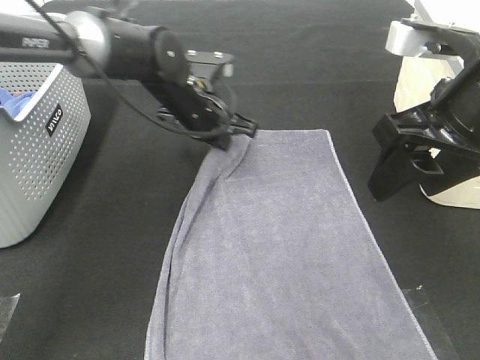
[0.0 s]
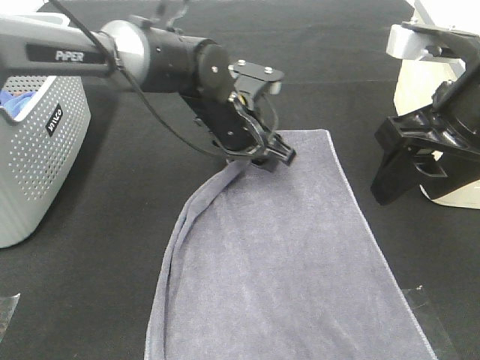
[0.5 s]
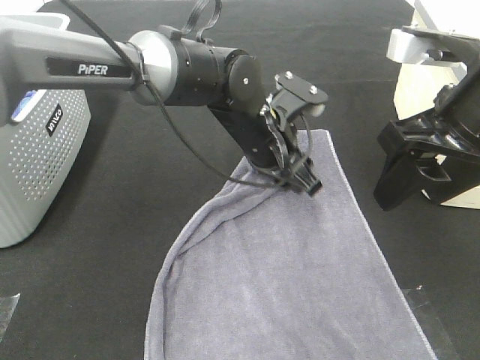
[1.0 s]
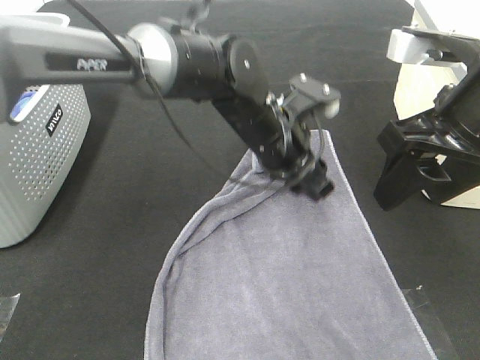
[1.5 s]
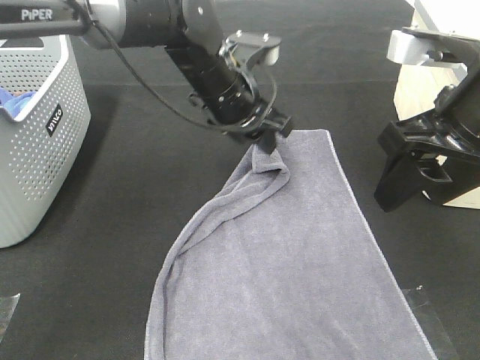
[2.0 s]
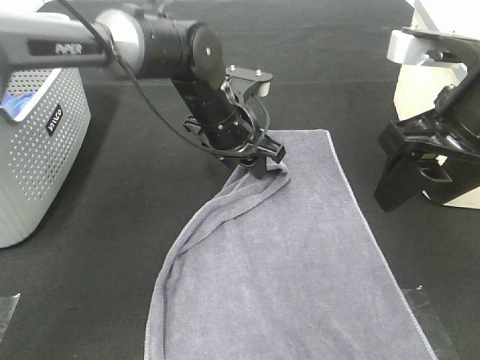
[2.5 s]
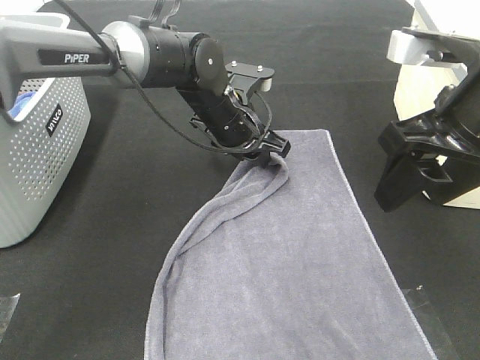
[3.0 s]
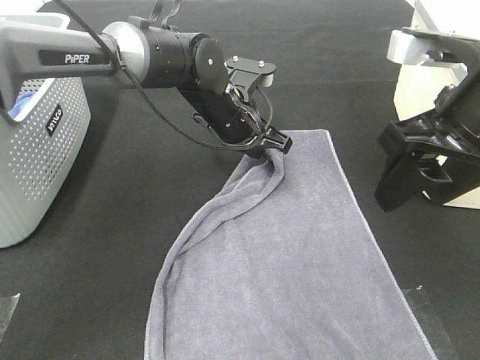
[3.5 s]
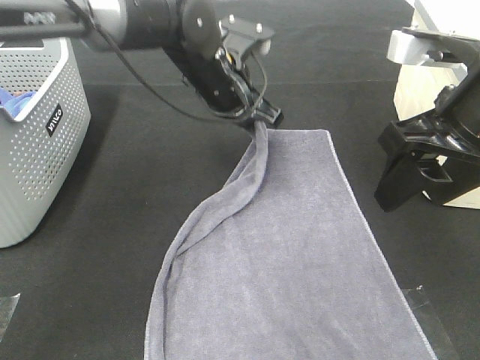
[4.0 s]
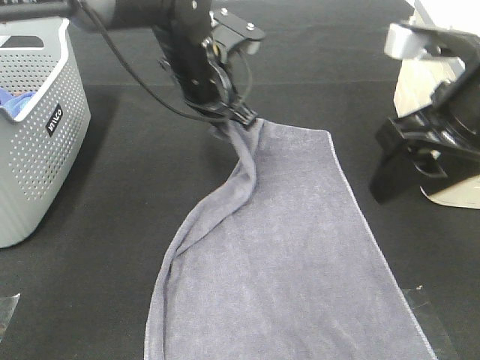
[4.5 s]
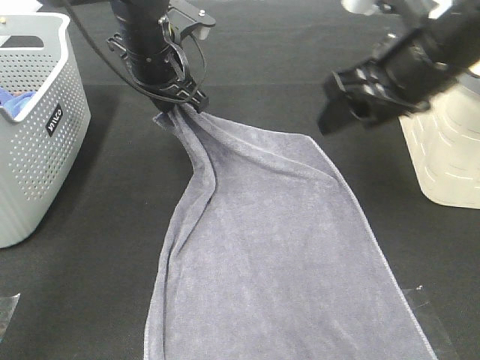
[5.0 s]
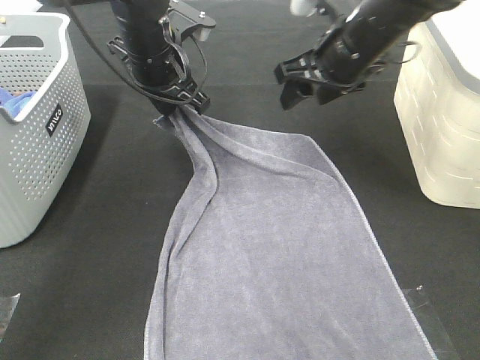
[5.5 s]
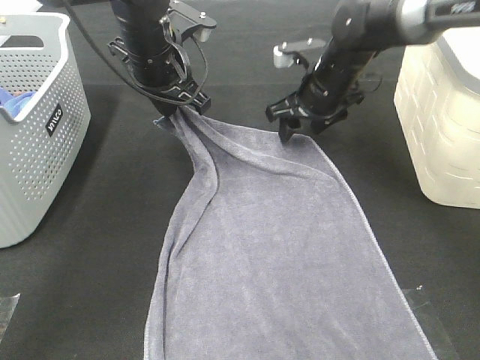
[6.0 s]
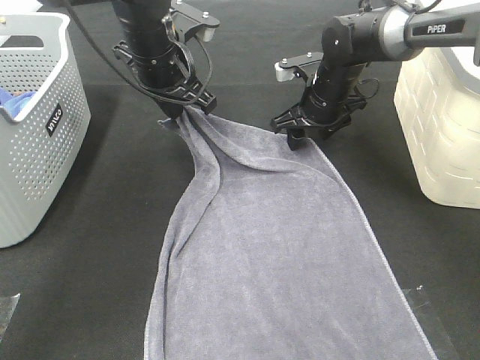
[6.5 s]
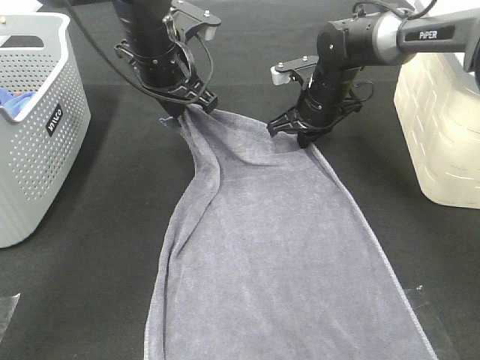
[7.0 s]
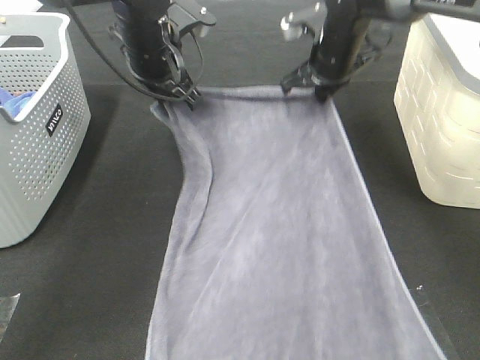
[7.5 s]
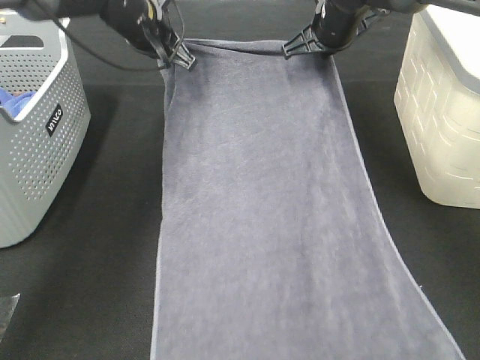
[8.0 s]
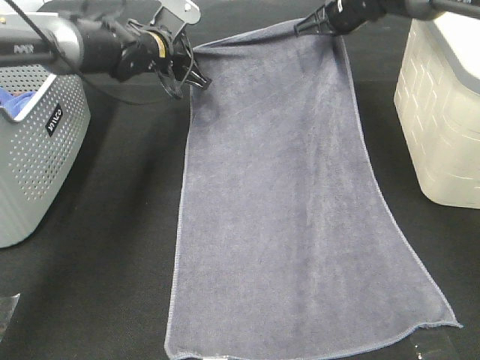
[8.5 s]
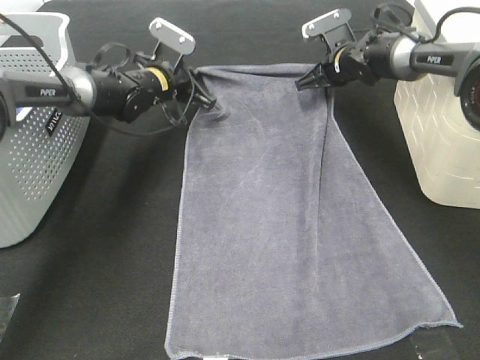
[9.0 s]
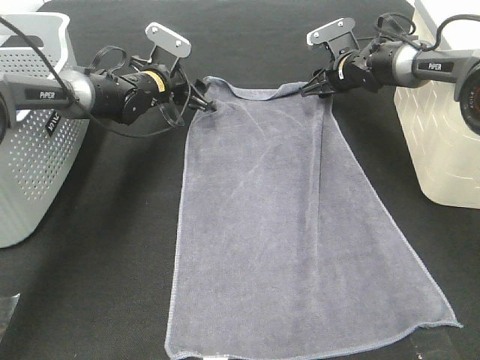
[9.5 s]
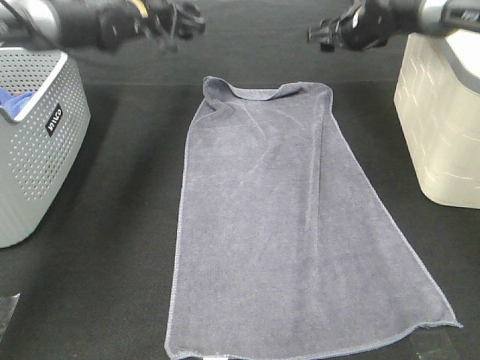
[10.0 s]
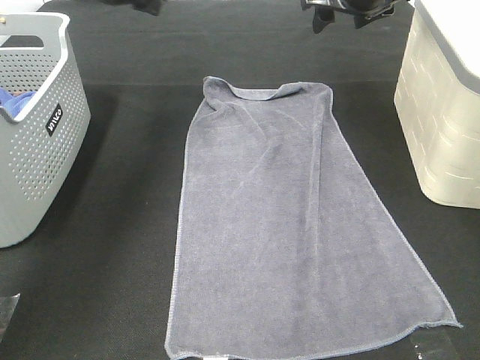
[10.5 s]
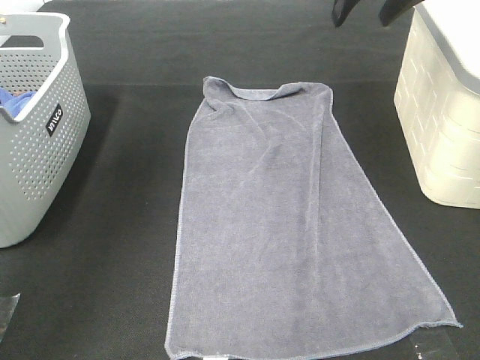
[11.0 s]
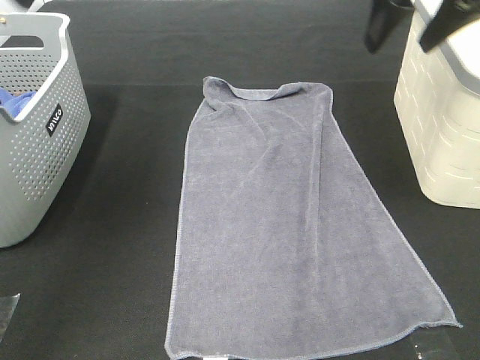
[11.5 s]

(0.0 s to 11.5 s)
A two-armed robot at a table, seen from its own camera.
Task of the whole recording: Remove the towel and place it.
Step, 0.0 s - 2.0 s: Left hand:adjust the gray towel.
0.0 s - 2.0 s: The left gripper opens up.
2.0 s - 4.0 s: The left gripper closes up.
4.0 s - 6.0 s: The right gripper is displaced forward and downward by about 25 cm; the left gripper travels to the left by approximately 5 cm.
6.0 s - 7.5 s: The right gripper moves approximately 5 cm, and closes.
7.5 s - 9.5 s: The two grippers go roughly 15 cm downward and forward. The right gripper opens its fingers. The left gripper opens.
9.5 s - 11.5 s: The two grippers go roughly 35 cm upward and backward.

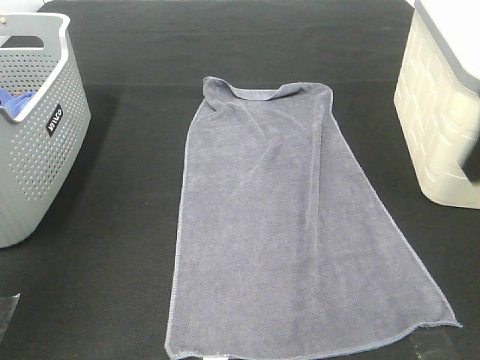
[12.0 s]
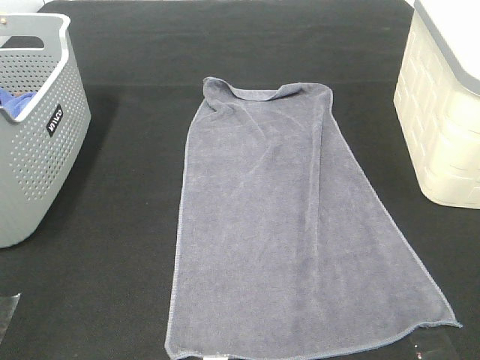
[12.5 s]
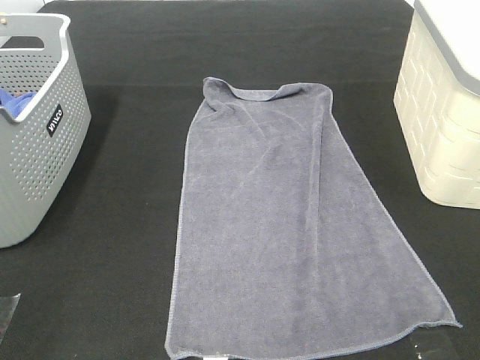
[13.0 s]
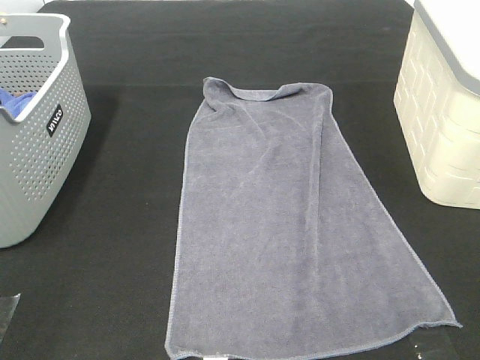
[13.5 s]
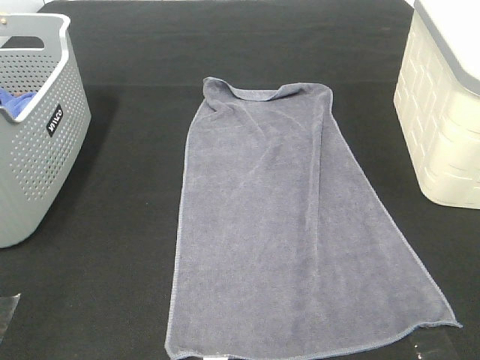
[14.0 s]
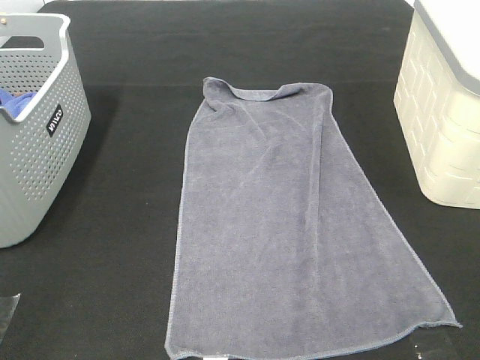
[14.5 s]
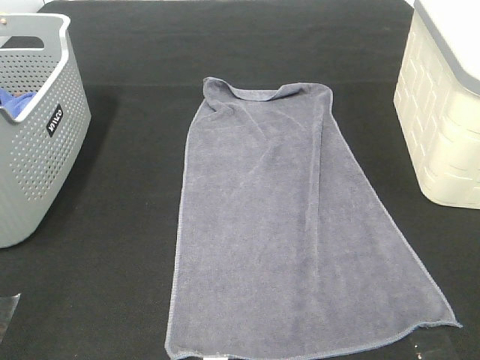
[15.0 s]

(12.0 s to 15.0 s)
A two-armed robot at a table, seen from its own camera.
Task of the whole recording: Remove the towel and place it.
12.0 s - 13.5 s: The right gripper heads backward, covering approximately 20 cm.
